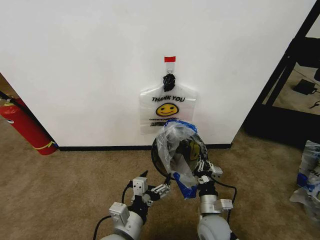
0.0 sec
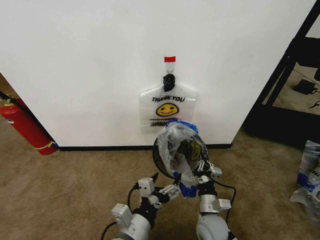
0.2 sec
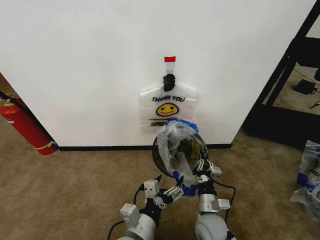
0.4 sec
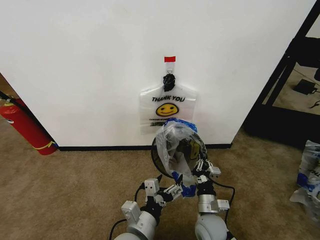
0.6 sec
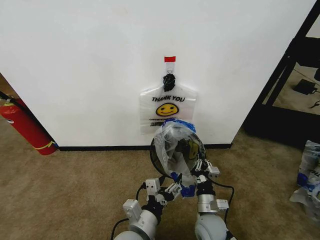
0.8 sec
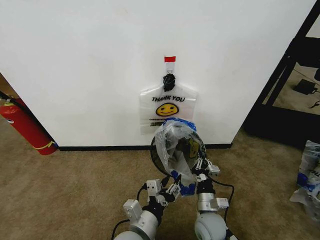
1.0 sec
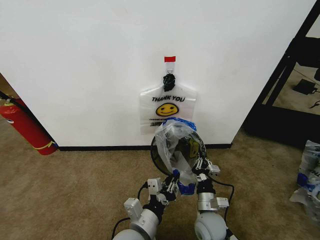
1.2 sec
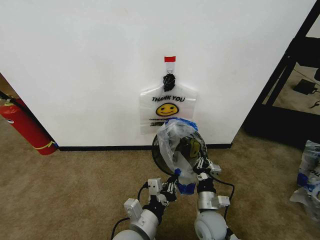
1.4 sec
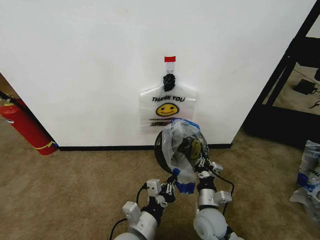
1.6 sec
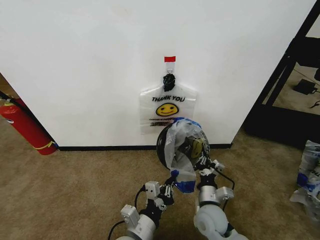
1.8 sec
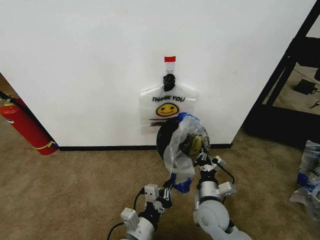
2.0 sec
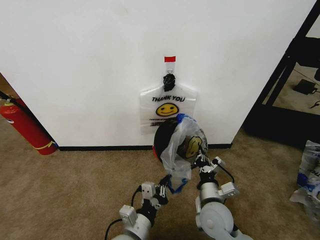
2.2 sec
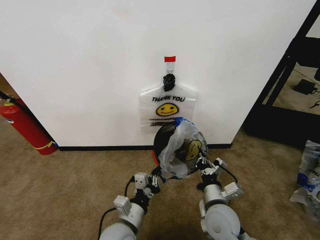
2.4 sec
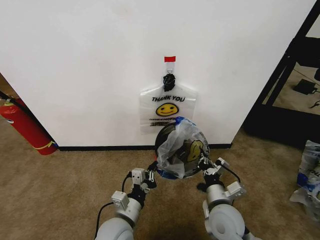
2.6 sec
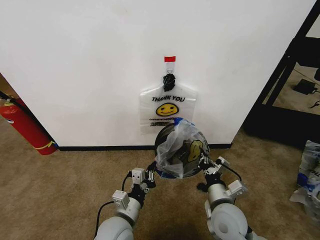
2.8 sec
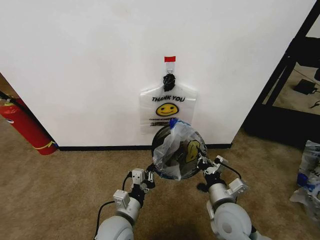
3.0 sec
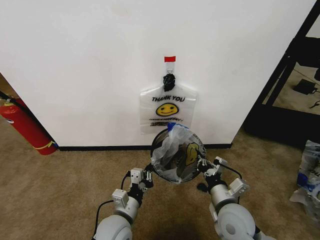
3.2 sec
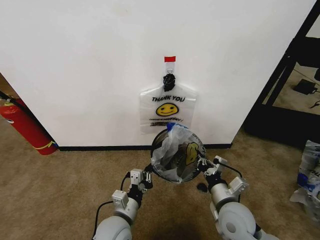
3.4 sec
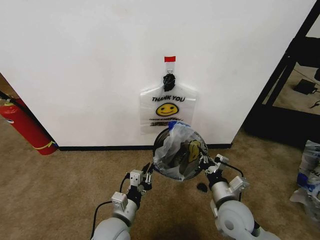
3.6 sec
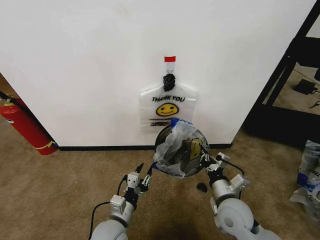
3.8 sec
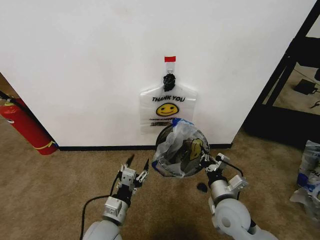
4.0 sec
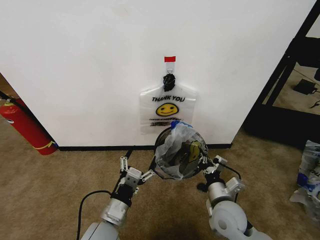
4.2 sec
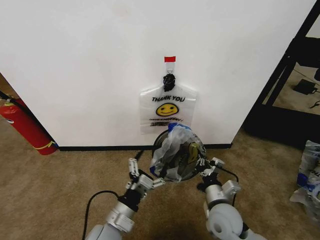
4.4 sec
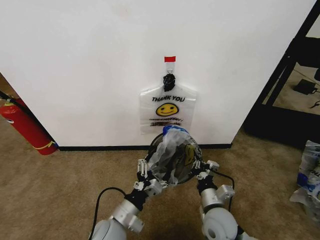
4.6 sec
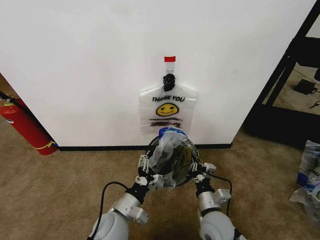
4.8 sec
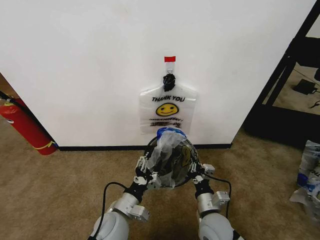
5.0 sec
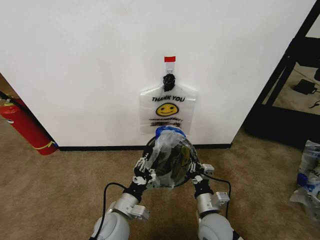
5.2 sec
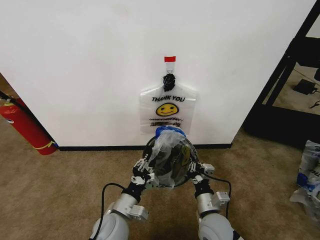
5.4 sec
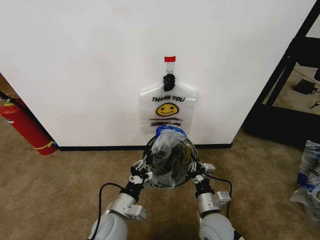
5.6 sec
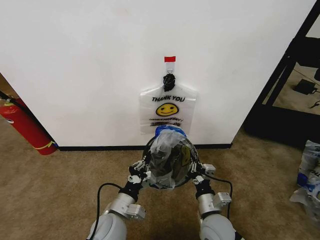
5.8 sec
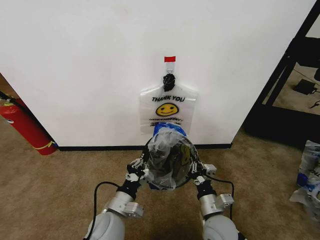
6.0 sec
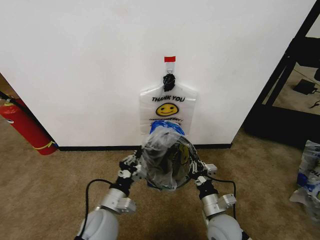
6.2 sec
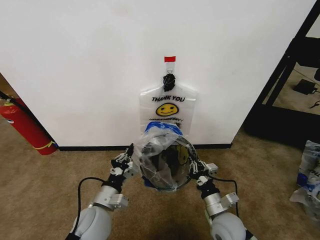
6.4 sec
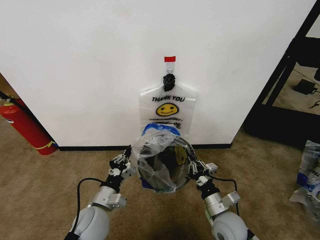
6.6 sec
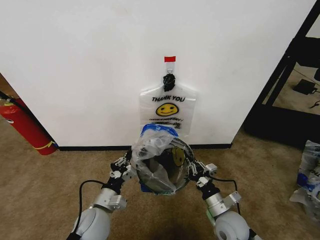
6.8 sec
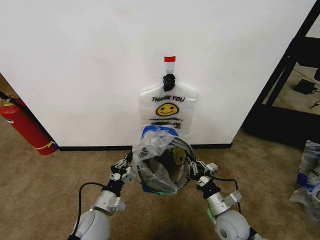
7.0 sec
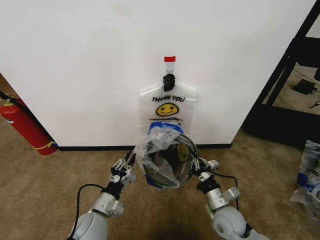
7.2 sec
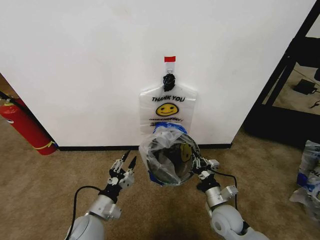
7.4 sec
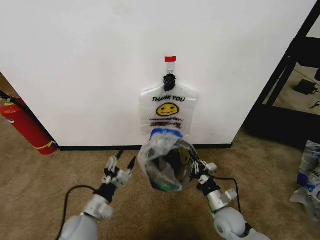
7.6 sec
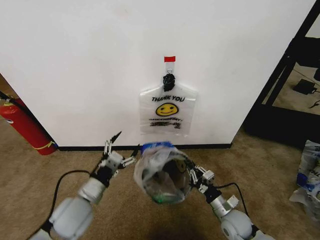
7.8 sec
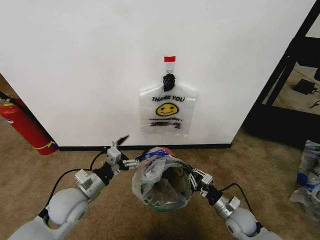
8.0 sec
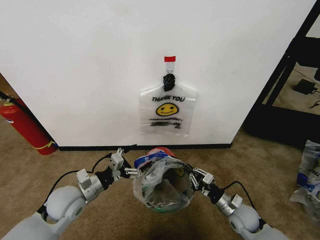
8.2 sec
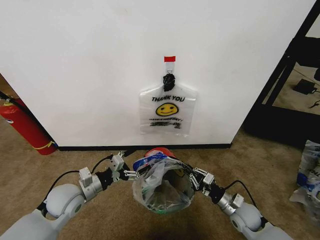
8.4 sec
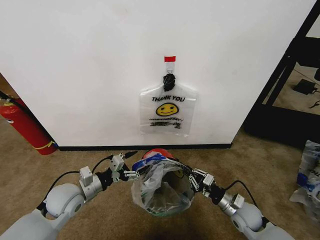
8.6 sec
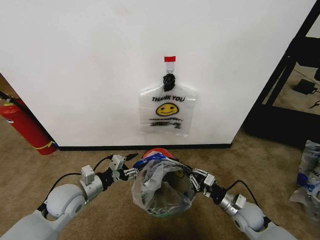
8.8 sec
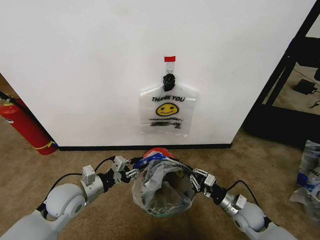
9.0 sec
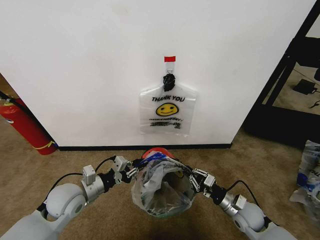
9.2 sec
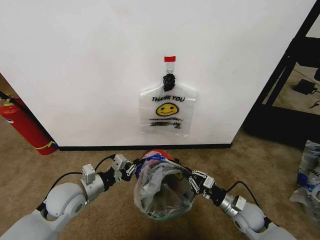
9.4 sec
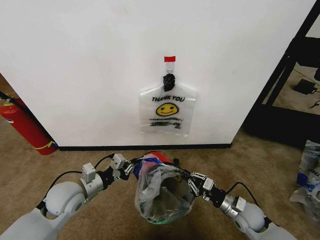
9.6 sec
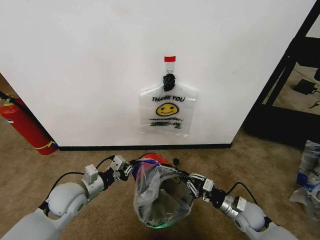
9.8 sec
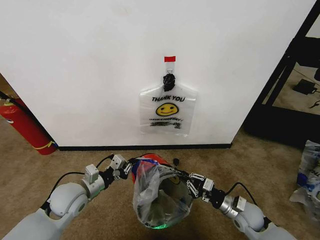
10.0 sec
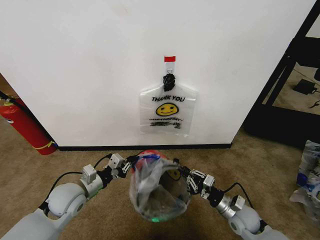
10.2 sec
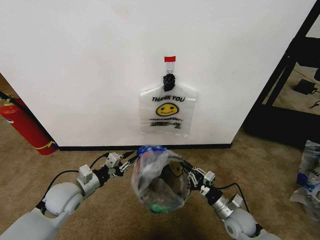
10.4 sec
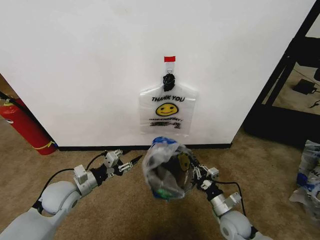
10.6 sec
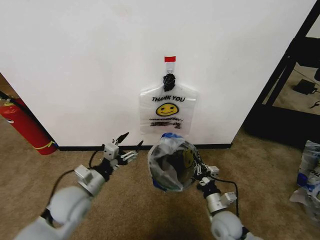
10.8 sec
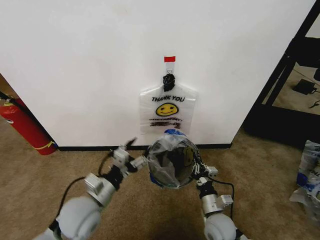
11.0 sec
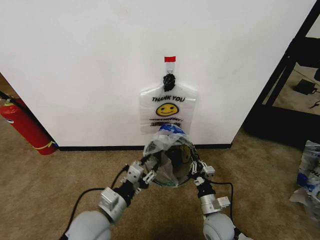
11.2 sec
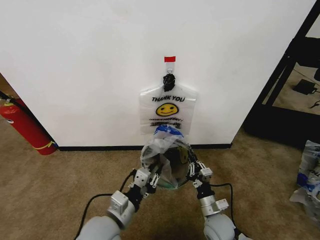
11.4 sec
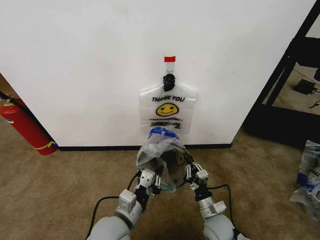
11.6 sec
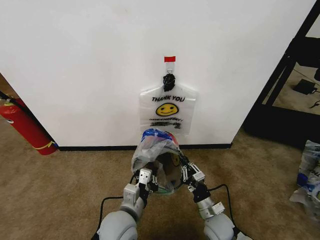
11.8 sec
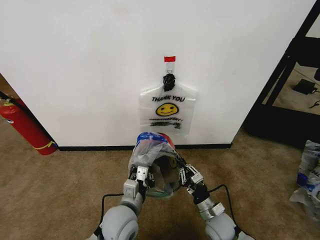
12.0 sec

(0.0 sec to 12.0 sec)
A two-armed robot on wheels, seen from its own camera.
Task of the whole recording: Pick up the garbage bag from the wall and place it over the trash bin.
0.0 sec - 1.6 sec: The right gripper travels to the left by some 10 cm. The left gripper shifts roughly 15 cm to the right and backward, and closes up.
1.6 sec - 3.0 sec: The right gripper is displaced upward by some 10 cm.
3.0 sec - 4.4 sec: The left gripper ends up roughly 5 cm from where it was, and opens up.
4.4 sec - 6.0 sec: The left gripper closes its fingers; the right gripper moves to the left, some 5 cm.
6.0 sec - 7.6 sec: The right gripper moves to the right, some 5 cm, while the left gripper heads to the left, covering approximately 5 cm, and opens its fingers.
7.6 sec - 9.0 sec: The right gripper moves to the right, approximately 10 cm; the left gripper is displaced to the left, forward and upward by about 10 cm.
9.0 sec - 10.4 sec: The grippers stay close to where they were, moving slightly.
10.4 sec - 12.0 sec: The right gripper travels to the left by about 10 cm, while the left gripper moves to the right and backward, about 15 cm, and opens, then closes once more.

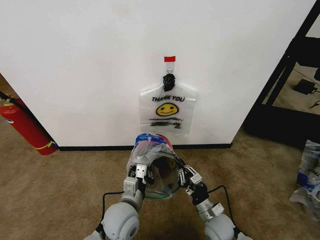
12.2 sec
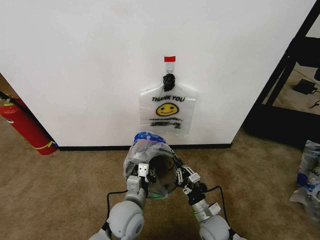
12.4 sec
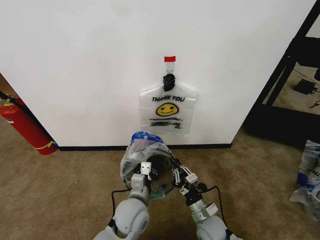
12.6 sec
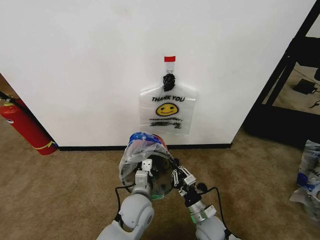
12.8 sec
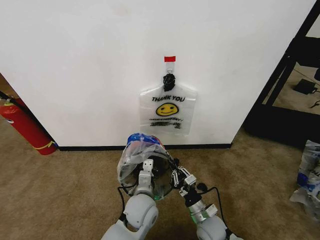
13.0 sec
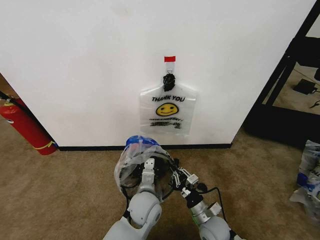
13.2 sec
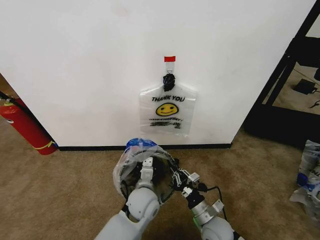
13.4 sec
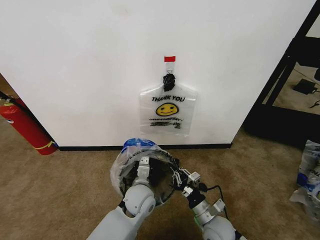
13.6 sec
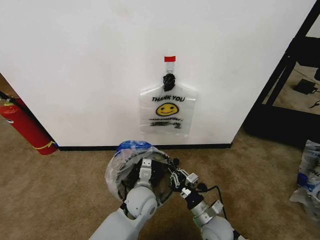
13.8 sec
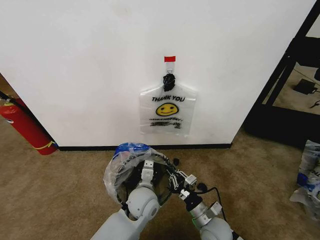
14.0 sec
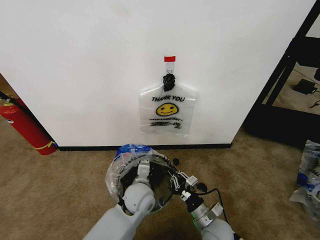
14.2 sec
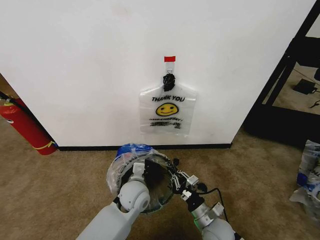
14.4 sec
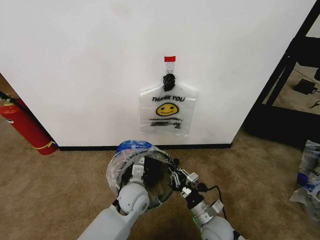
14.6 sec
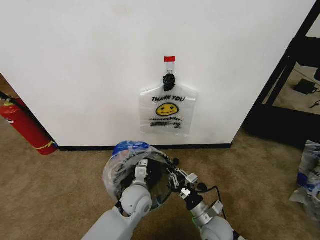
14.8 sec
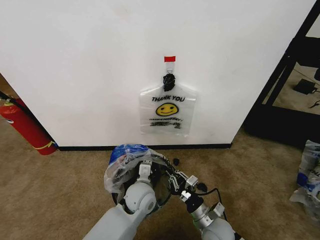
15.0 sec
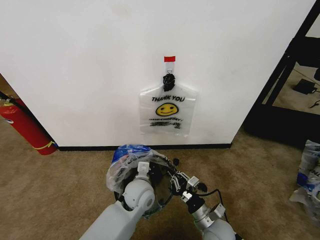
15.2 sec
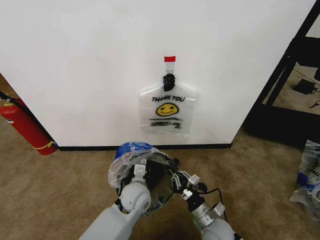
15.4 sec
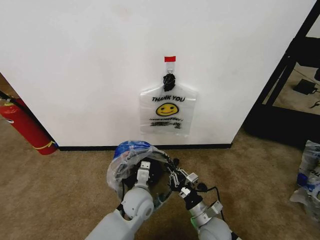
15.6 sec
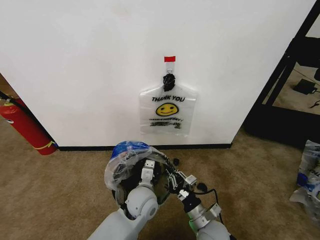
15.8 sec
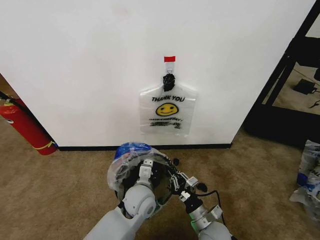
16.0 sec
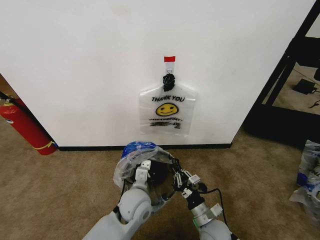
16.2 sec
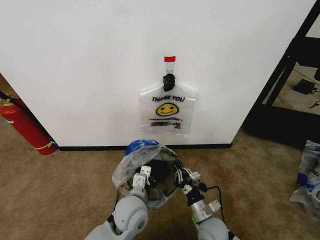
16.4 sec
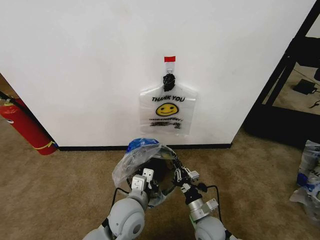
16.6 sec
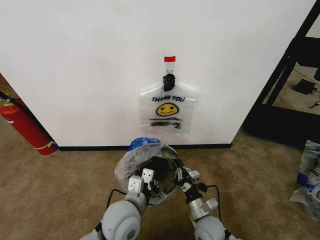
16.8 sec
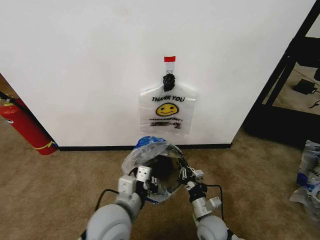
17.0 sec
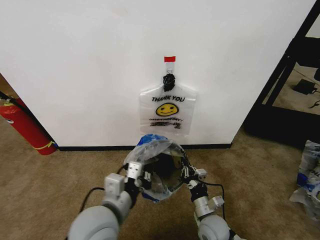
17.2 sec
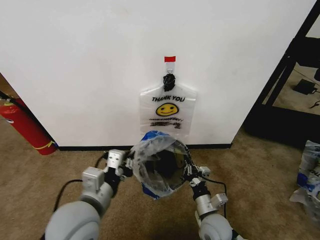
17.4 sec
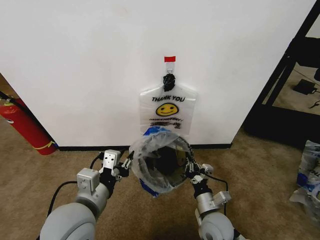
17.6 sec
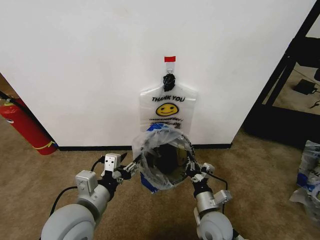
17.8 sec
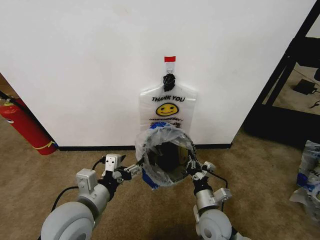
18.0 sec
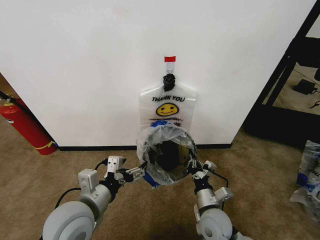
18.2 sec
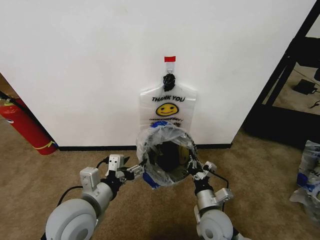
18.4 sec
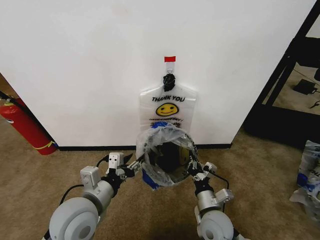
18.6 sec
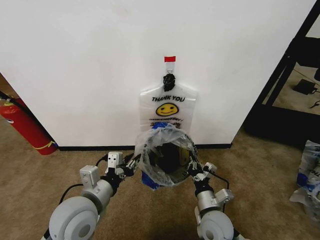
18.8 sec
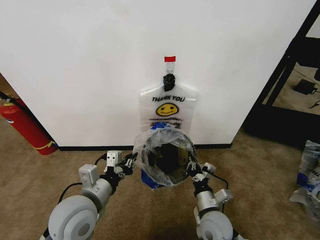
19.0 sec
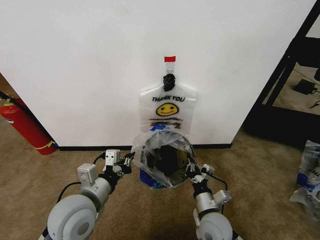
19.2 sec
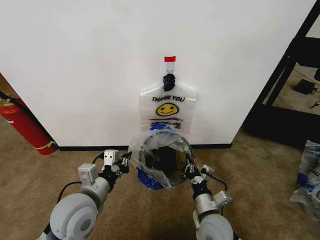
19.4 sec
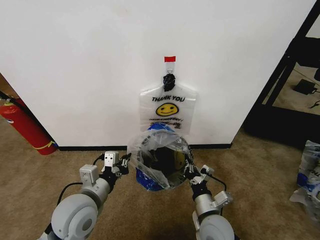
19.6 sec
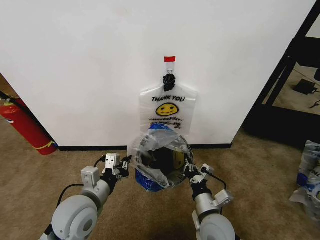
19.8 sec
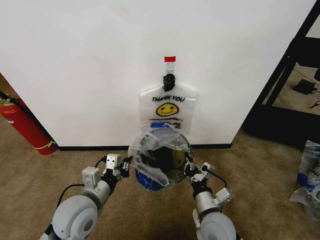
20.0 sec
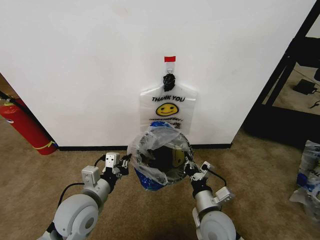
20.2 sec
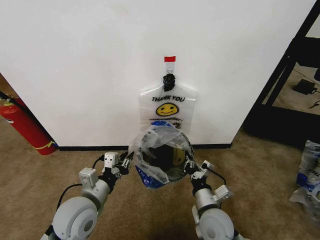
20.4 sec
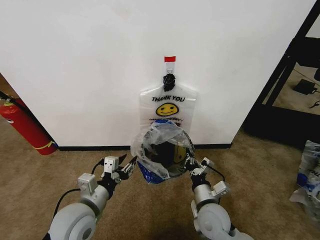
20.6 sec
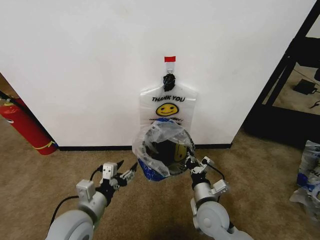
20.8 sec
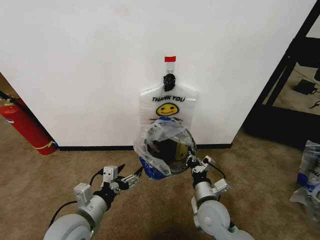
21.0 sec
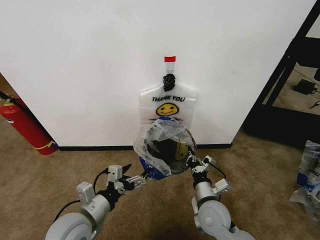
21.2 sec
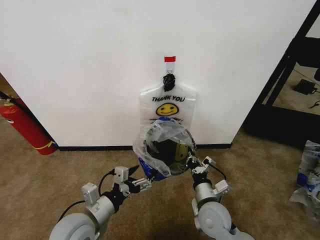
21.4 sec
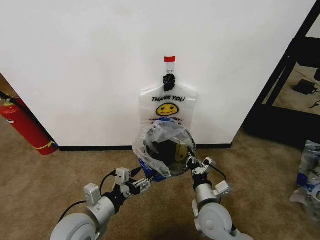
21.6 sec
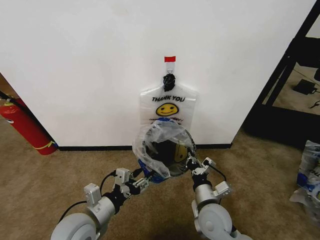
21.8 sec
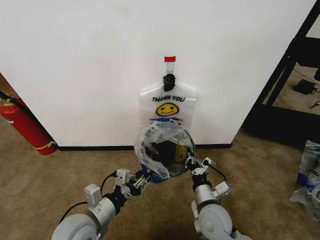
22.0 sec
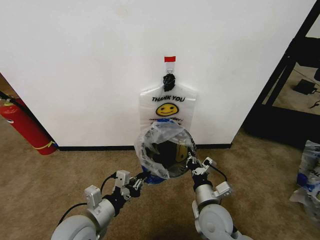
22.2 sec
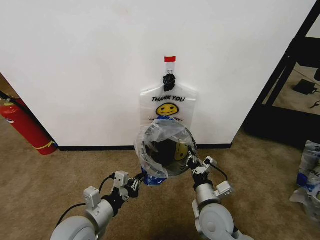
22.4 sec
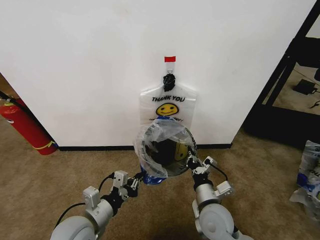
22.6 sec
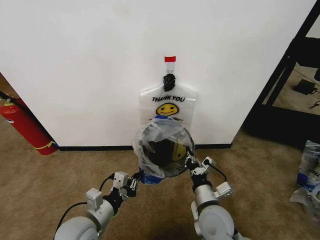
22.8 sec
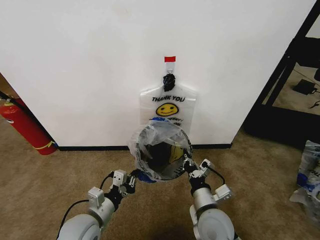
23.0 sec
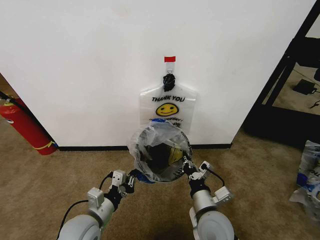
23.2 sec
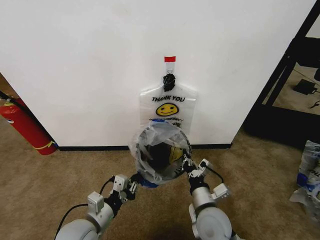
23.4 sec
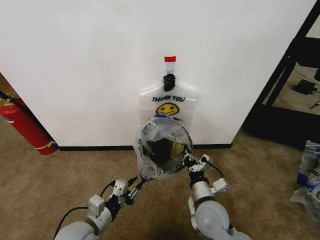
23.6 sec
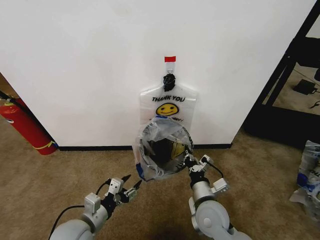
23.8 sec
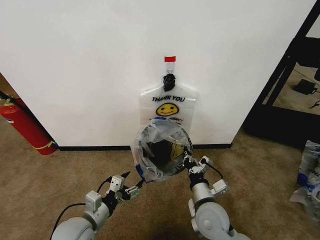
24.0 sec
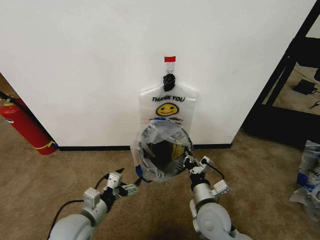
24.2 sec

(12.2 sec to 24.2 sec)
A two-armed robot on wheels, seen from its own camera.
Task of the whole recording: Pick up the garbage bag from the wall and place it over the trash bin.
12.2 sec - 13.8 sec: The left gripper is displaced forward and to the right by about 10 cm.
13.8 sec - 15.2 sec: There are only small adjustments of the grippers.
15.2 sec - 16.6 sec: The left gripper moves backward, approximately 10 cm.
16.6 sec - 18.2 sec: The right gripper is displaced upward by about 5 cm. The left gripper goes approximately 15 cm to the left and upward, and opens up.
18.2 sec - 19.8 sec: The left gripper closes up.
19.8 sec - 21.2 sec: The left gripper opens its fingers.
21.2 sec - 22.6 sec: The left gripper closes up.
22.6 sec - 24.2 sec: The left gripper opens up.
